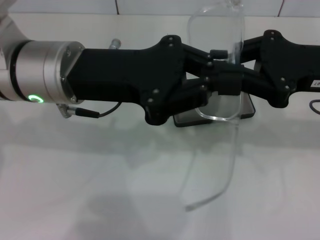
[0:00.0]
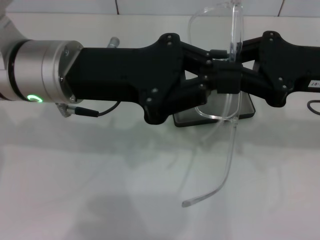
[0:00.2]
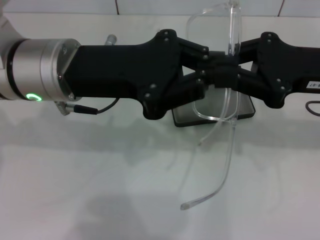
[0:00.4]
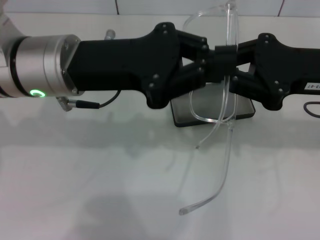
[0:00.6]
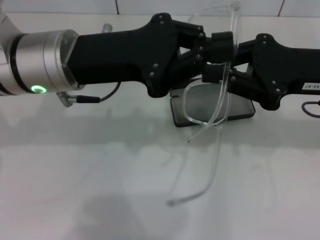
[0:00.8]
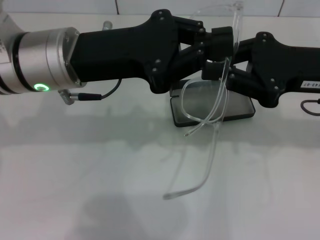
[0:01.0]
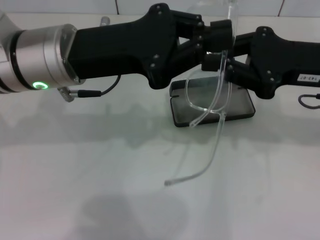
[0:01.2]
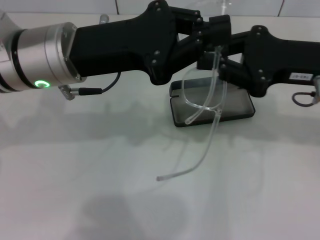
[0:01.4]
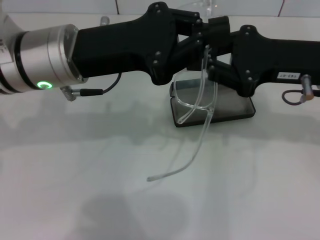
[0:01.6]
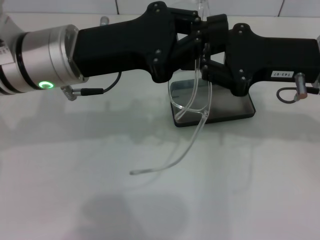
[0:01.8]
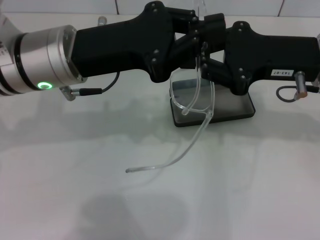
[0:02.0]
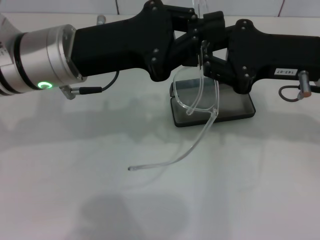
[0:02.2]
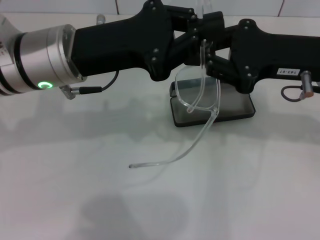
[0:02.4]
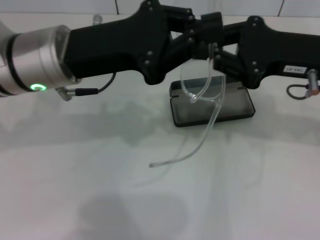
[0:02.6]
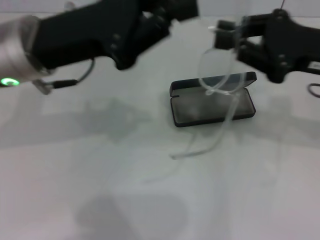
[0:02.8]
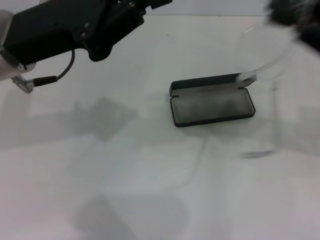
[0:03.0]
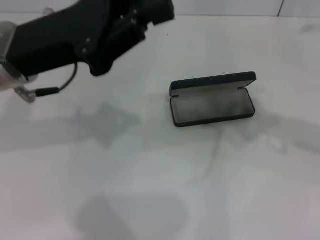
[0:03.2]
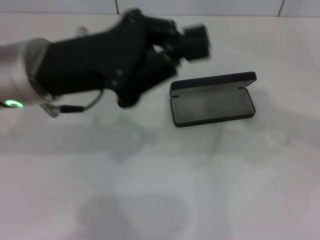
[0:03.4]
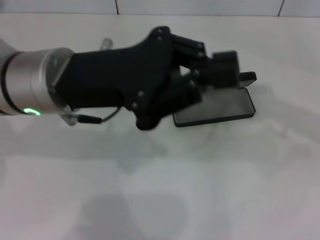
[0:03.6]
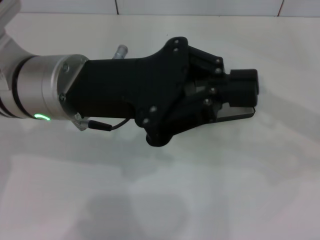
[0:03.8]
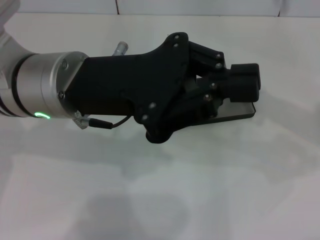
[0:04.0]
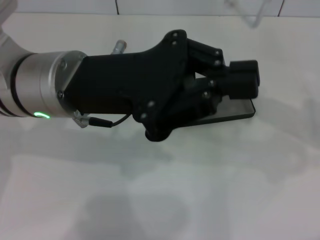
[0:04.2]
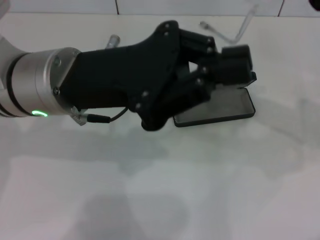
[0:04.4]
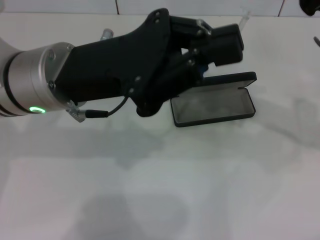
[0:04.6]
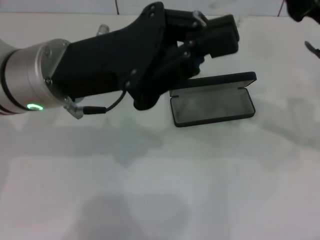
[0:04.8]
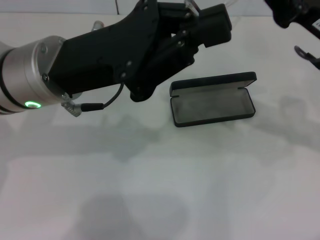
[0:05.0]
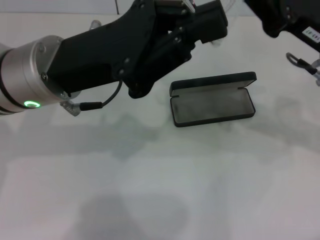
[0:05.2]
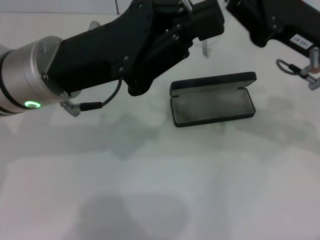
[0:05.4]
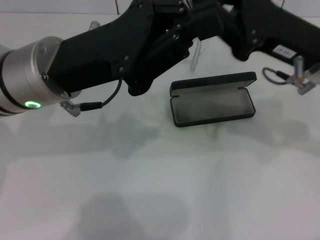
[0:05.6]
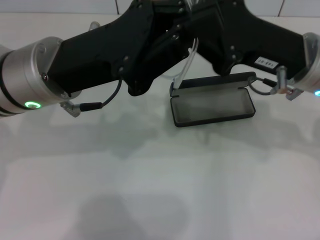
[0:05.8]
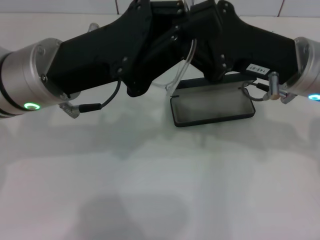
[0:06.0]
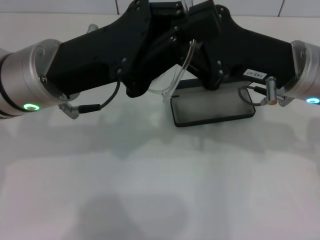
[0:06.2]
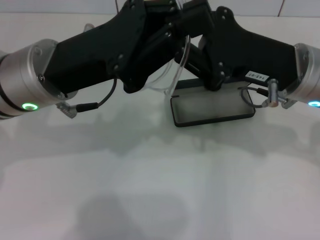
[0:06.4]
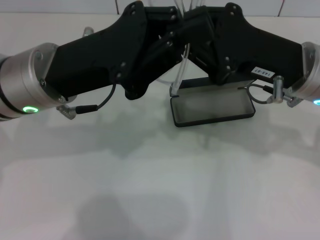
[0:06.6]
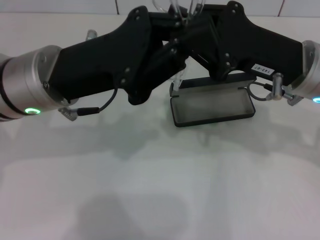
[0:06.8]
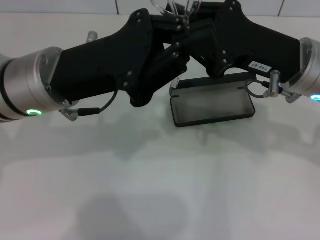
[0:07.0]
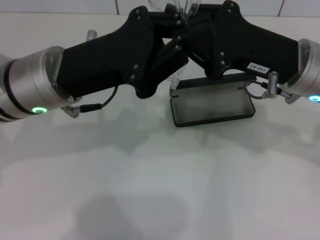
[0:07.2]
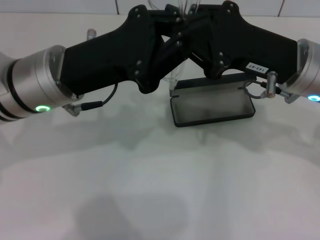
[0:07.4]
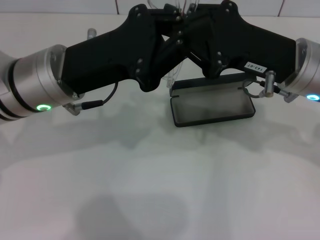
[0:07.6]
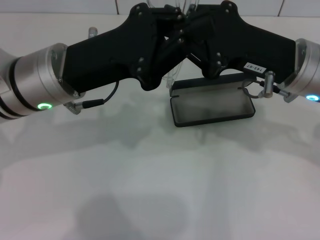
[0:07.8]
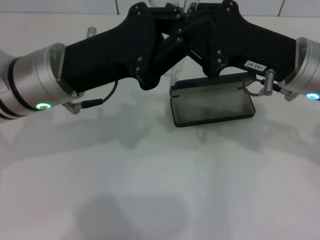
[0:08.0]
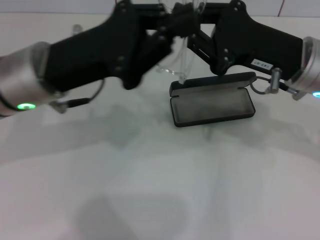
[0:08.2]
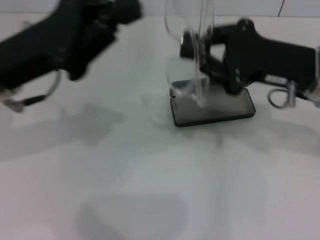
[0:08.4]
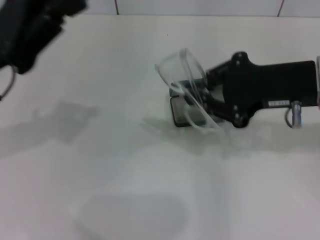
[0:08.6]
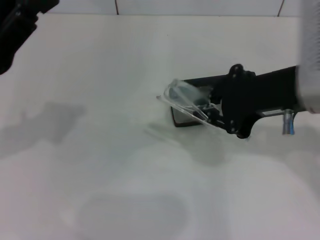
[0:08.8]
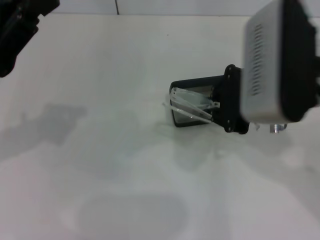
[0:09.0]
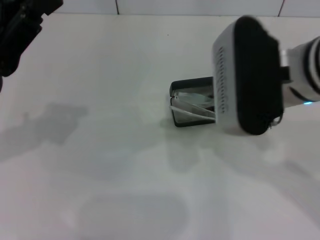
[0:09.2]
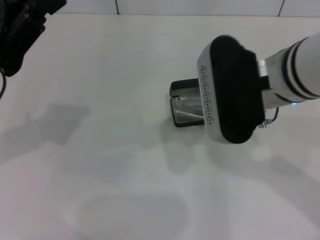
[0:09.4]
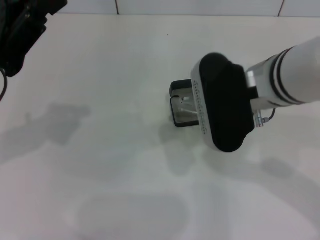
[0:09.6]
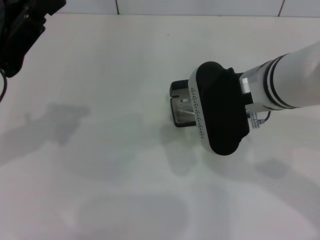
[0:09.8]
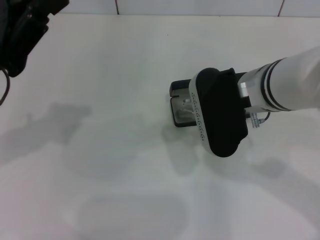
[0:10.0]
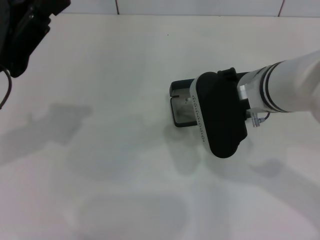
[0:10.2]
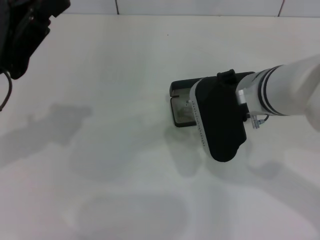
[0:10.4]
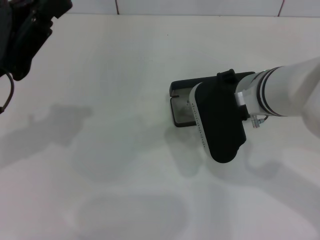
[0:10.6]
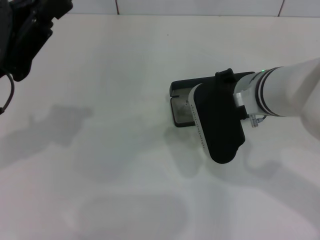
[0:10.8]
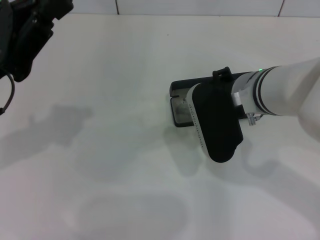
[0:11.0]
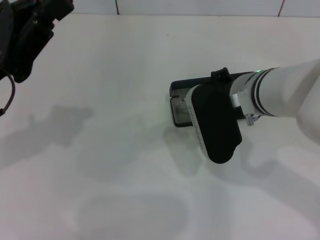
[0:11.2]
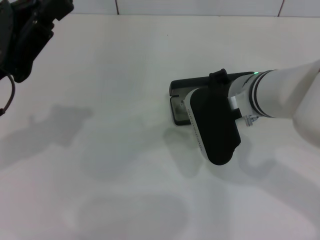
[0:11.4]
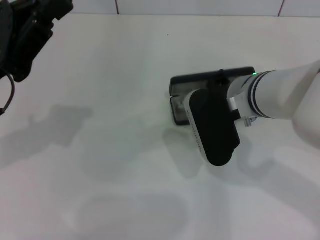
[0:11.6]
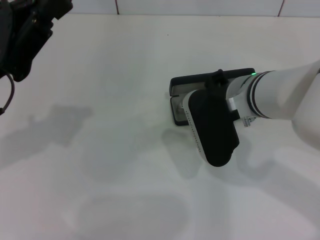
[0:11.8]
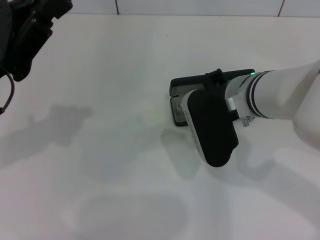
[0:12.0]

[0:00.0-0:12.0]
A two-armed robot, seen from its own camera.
Step, 0:00.0 to 0:07.8: Fold the frame with your left hand.
0:01.6 to 0:03.0: The right gripper heads to the right, covering about 5 cm.
0:03.0 to 0:04.4: The left gripper moves to the right, about 5 cm.
0:04.4 to 0:06.0: The right gripper shifts some 10 cm to the left.
0:06.0 to 0:07.6: The grippers stay close to where they were, moving slightly.
0:07.6 to 0:09.0: The right gripper moves upward, approximately 5 cm; the left gripper travels to the left by roughly 10 cm.
0:09.0 to 0:10.4: The right gripper moves downward, approximately 10 cm.
0:10.4 to 0:12.0: There are only small adjustments of the grippers.

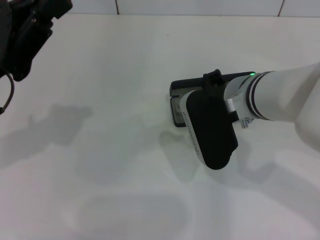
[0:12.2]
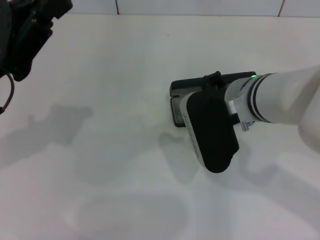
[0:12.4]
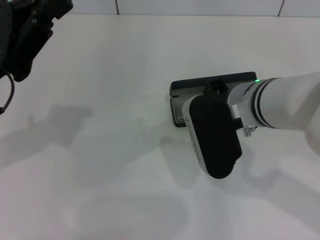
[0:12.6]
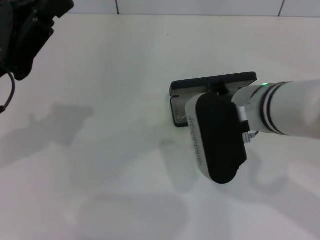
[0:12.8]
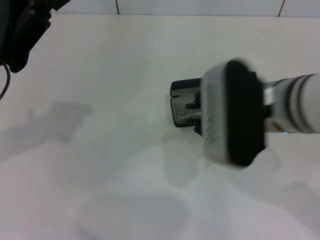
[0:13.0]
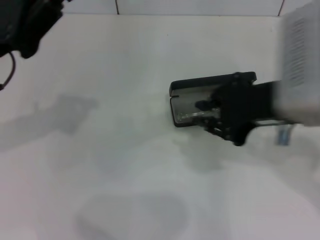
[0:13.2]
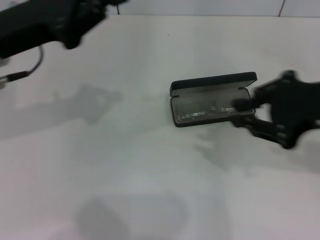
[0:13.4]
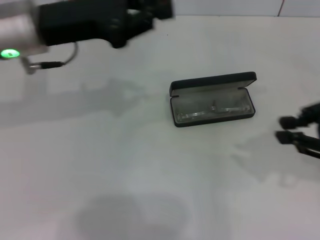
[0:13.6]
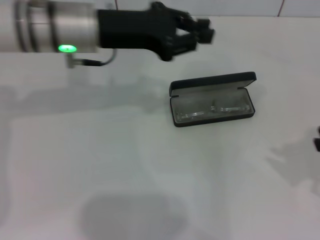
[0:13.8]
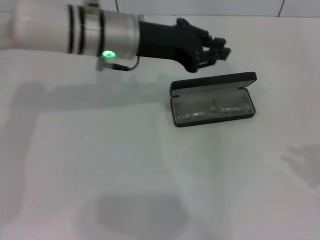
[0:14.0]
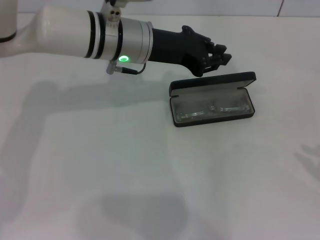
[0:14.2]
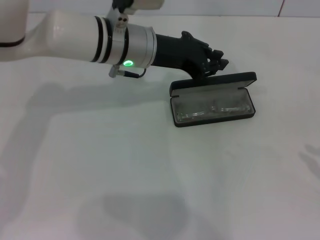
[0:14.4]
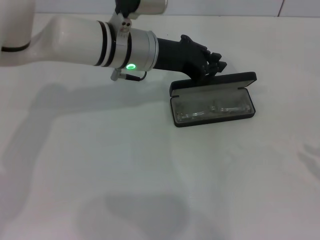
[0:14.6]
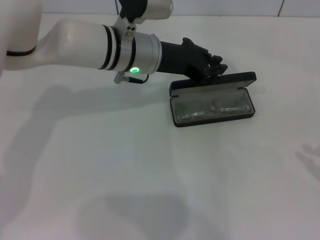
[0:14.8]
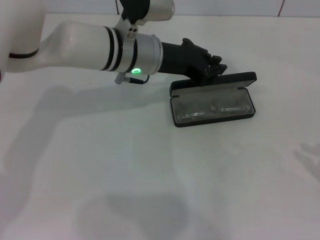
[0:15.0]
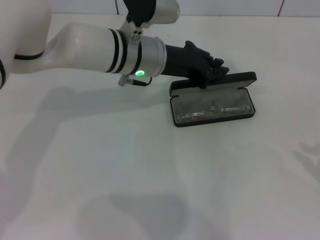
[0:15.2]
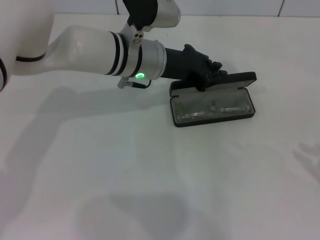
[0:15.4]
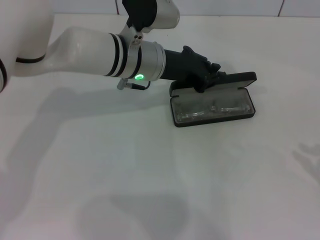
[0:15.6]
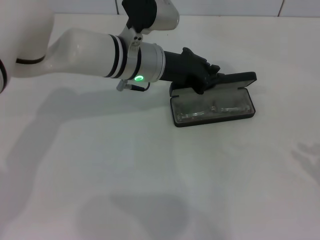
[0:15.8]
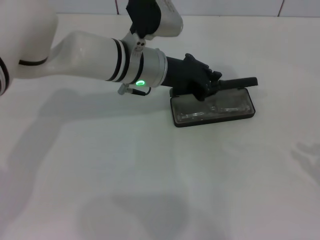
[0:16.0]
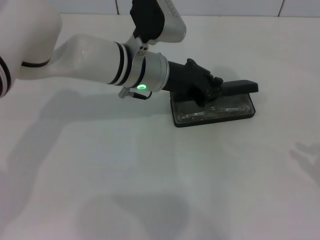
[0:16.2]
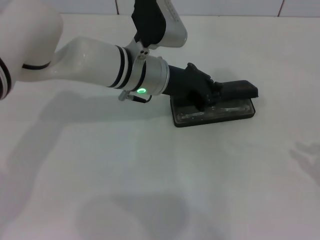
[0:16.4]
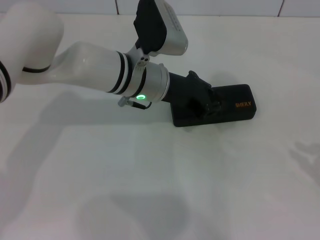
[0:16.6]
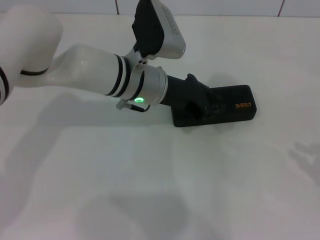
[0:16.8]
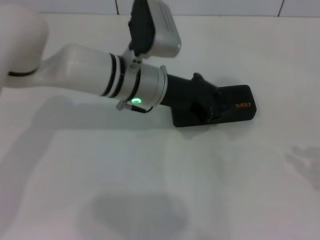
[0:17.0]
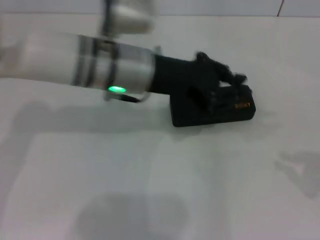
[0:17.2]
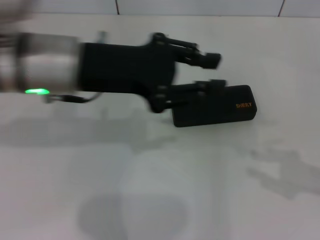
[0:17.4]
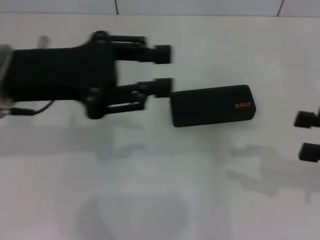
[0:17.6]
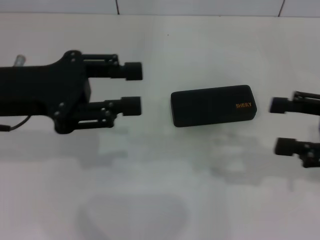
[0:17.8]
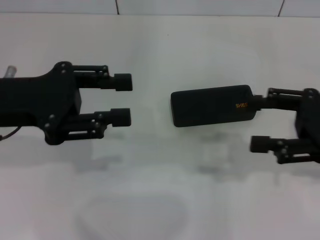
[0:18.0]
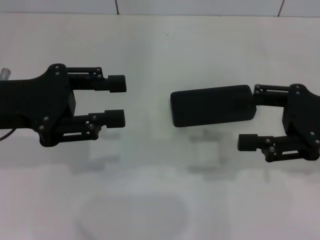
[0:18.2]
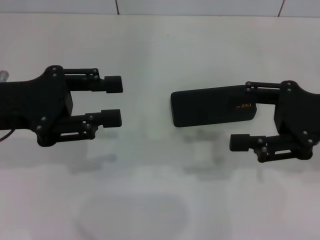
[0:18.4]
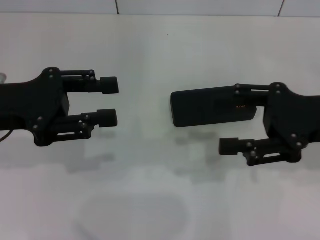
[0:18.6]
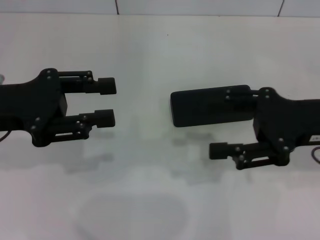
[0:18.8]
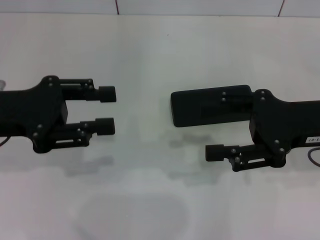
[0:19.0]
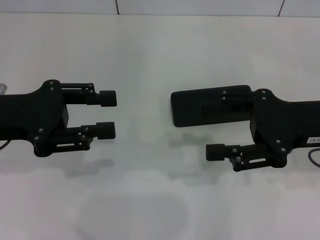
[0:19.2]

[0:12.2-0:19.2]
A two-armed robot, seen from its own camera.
Step, 0:12.6 to 0:16.6: Close the glasses case with your left hand.
0:12.2 to 0:13.6: The left gripper moves forward and to the right, roughly 10 cm. The right gripper goes about 20 cm to the right, backward and upward.
0:13.6 to 0:15.0: The grippers both shift to the right and downward by roughly 15 cm.
0:15.0 to 0:16.4: There are only small adjustments of the grippers.
0:16.4 to 0:17.8: The right gripper travels to the left by about 10 cm, and opens up. Meanwhile the left gripper goes about 25 cm to the left, backward and upward, and opens.
0:17.8 to 0:19.2: The right gripper shifts some 10 cm to the left.

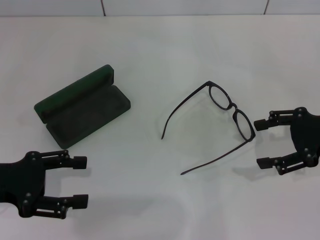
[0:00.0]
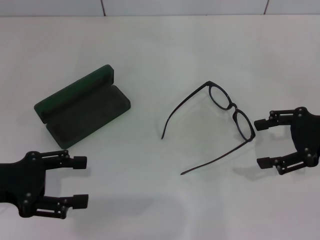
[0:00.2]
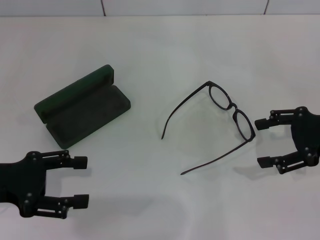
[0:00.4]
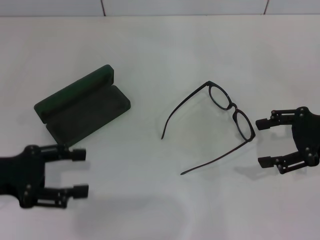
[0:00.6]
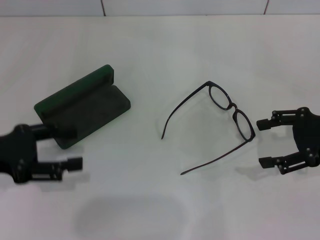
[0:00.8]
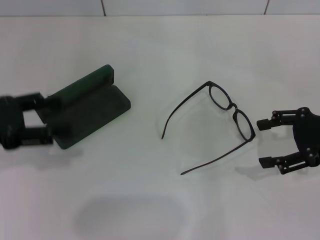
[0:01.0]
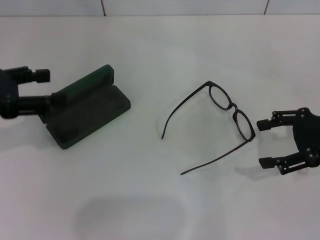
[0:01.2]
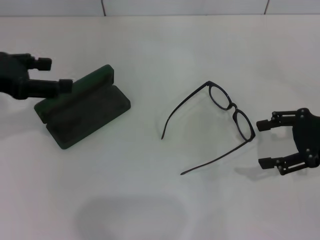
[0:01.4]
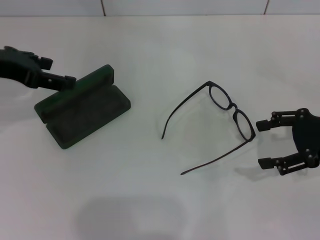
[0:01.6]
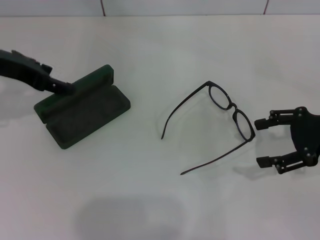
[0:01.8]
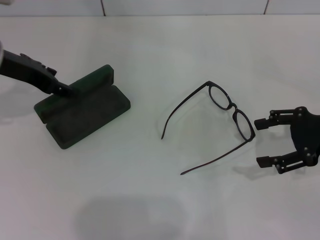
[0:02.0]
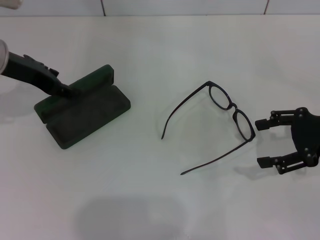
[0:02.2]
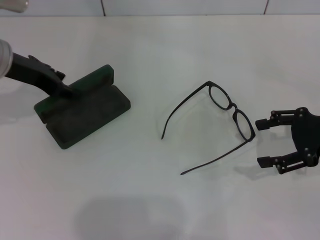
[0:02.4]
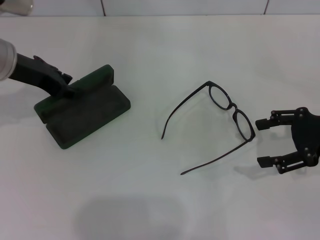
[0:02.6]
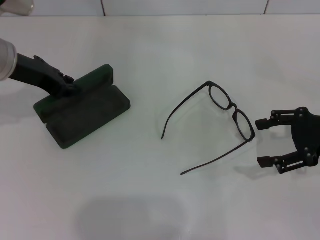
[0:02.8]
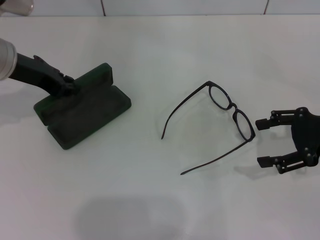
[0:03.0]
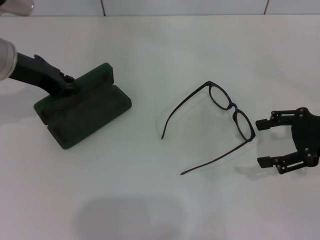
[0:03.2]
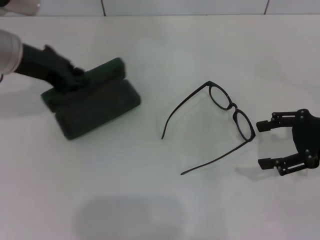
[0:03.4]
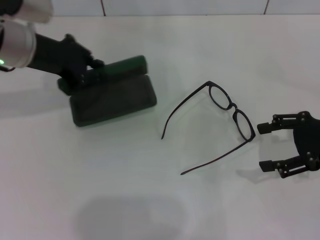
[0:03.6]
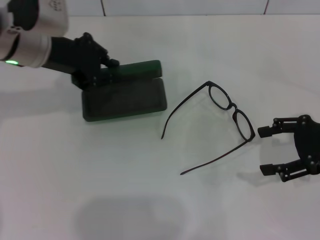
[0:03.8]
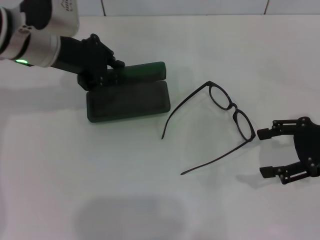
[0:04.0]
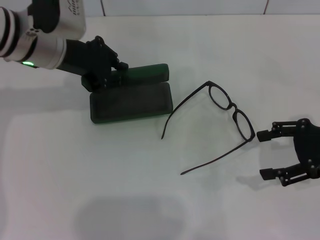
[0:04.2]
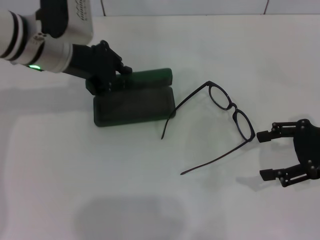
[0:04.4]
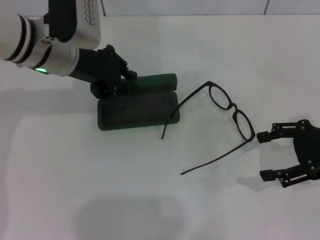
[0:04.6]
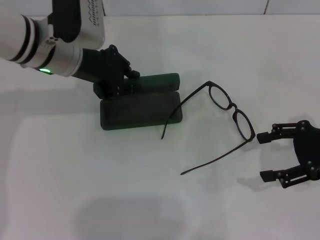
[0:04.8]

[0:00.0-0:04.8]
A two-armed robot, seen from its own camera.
Step, 0:00.0 to 0:03.0: Grab the glasses case with your left hand.
0:00.0 to 0:01.6: The left gripper heads forward and upward, covering approximately 15 cm.
0:01.6 to 0:03.2: The left gripper shifts by roughly 5 cm, and closes its fingers.
0:03.2 to 0:04.8: The left gripper heads to the right, covering some 10 cm.
